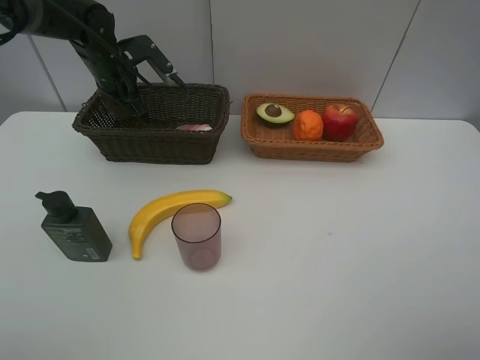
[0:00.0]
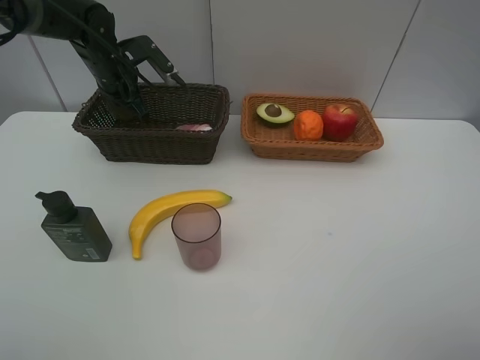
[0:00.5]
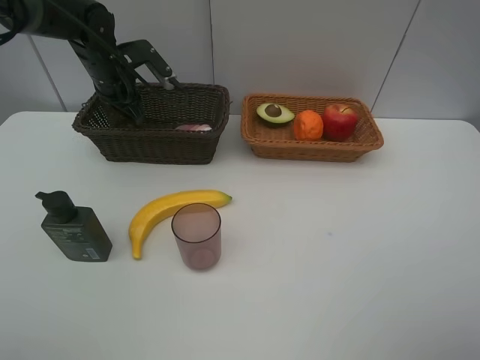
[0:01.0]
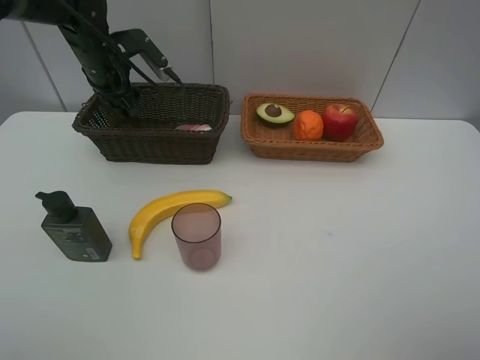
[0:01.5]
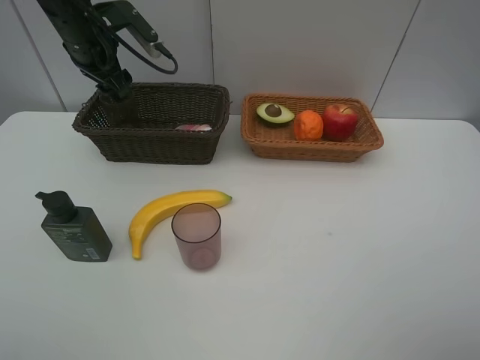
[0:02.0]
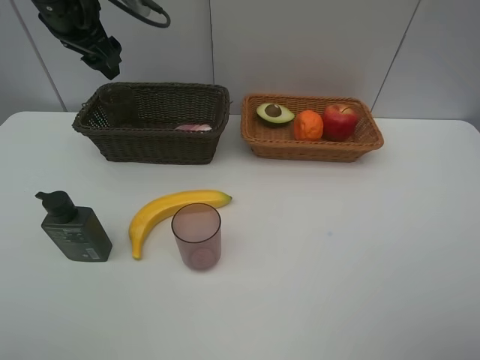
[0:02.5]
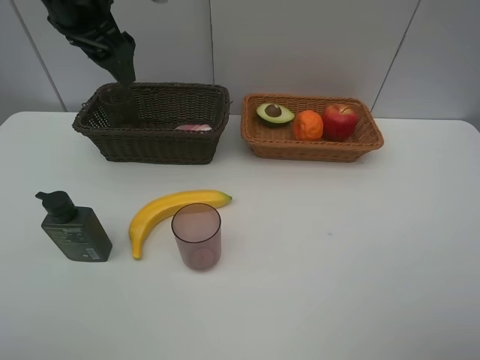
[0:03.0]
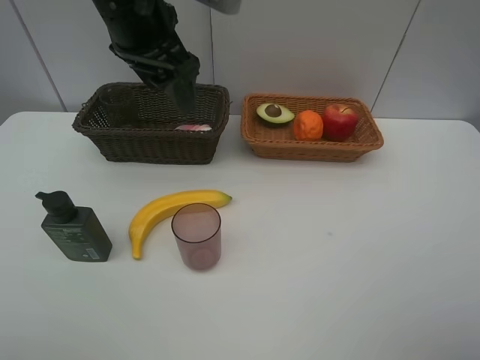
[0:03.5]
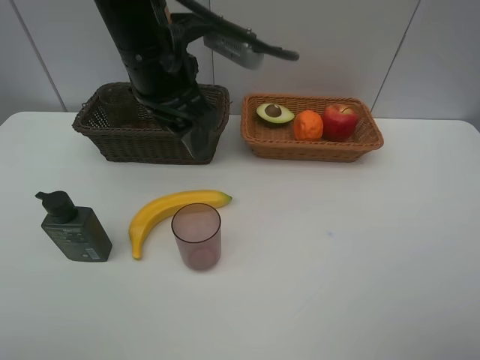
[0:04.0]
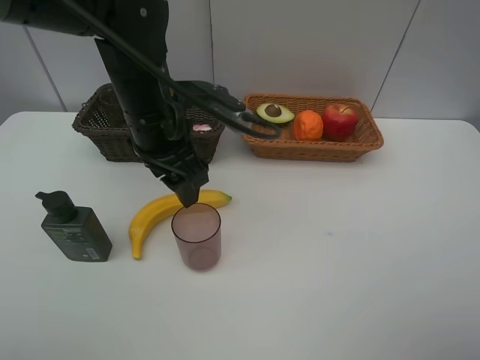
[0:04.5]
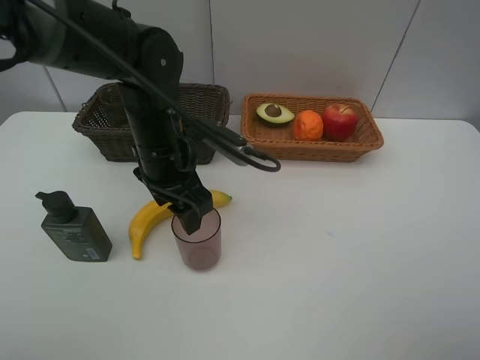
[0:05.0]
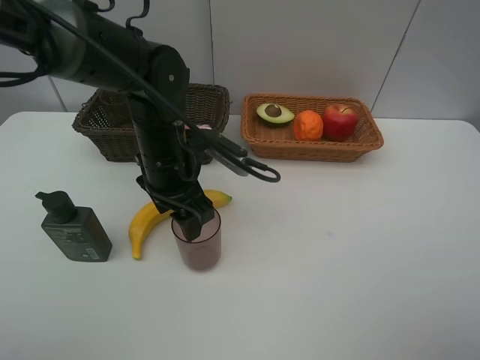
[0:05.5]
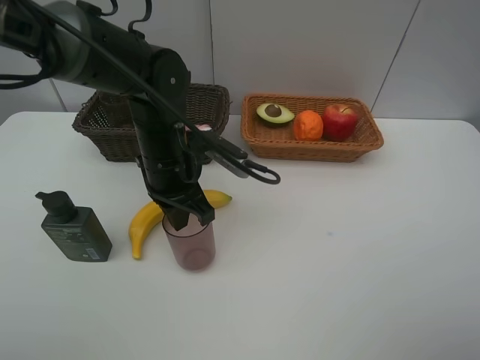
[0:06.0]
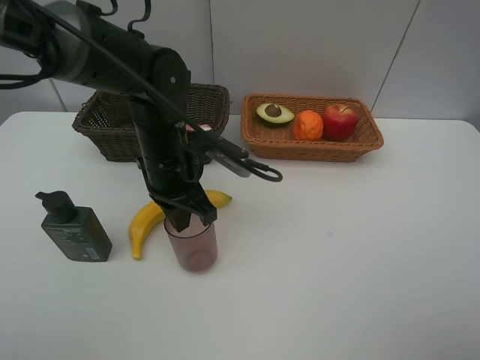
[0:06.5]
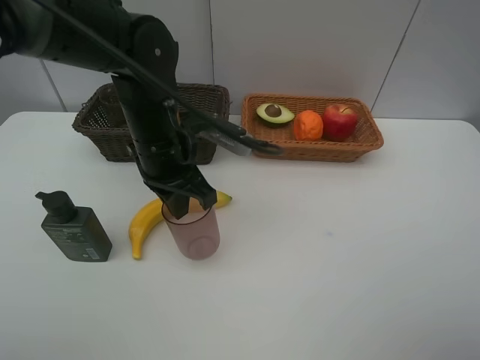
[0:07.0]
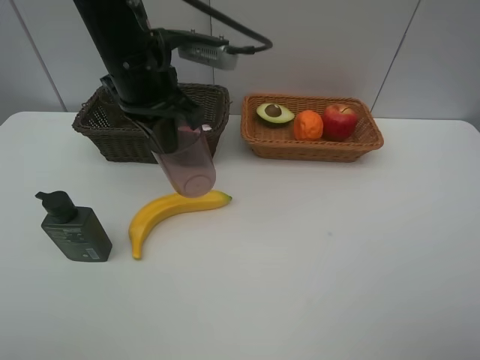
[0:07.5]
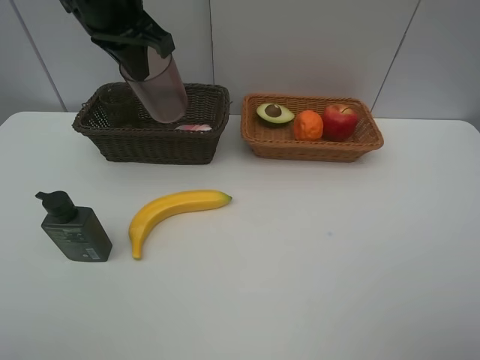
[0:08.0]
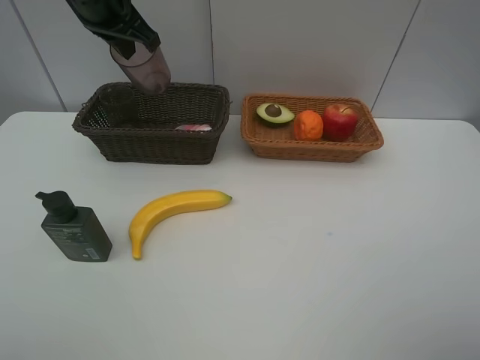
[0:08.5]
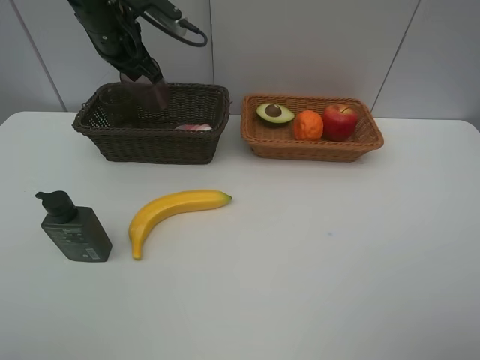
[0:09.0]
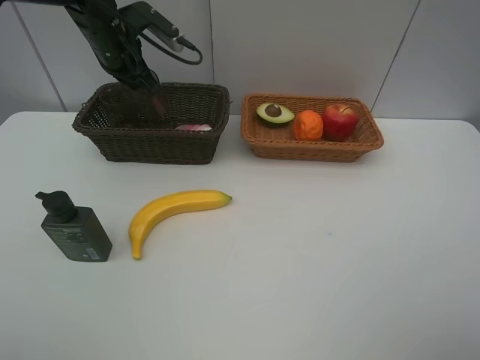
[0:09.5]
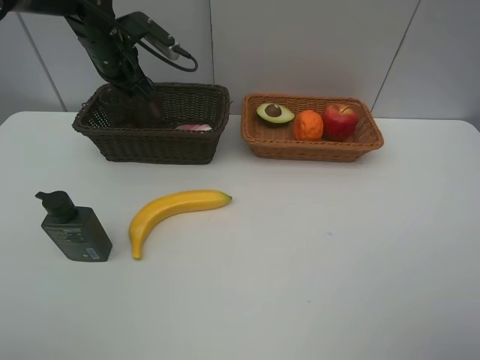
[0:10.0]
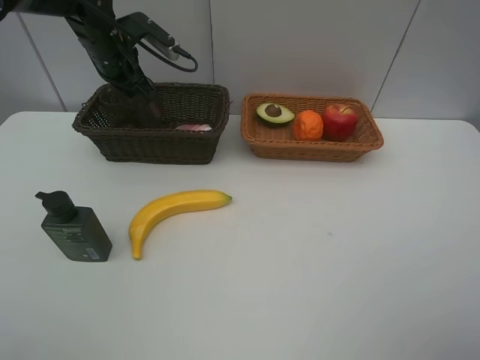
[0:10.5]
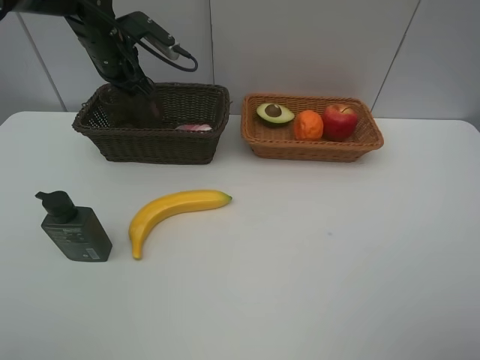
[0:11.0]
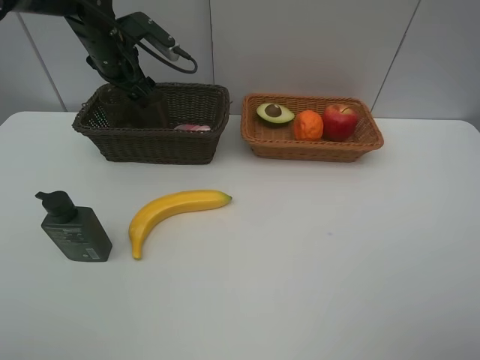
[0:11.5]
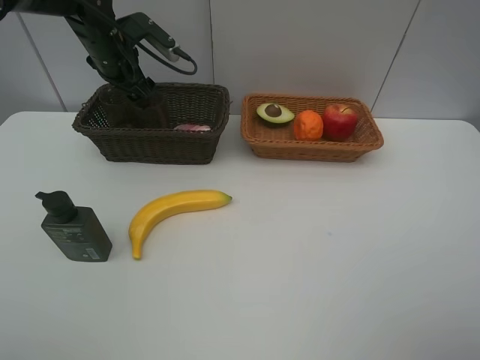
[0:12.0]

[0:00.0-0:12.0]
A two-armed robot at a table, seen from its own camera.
Task of the whole recording: Place multiple objects separately in different baskets.
Step, 0:02.0 to 0:07.0: Pick up the red cup with left gripper.
0:00.0 to 0:02.0: The left gripper shifts approximately 5 cm upward, and opens up.
0:02.0 to 0:04.0: The left gripper moves backward and to the right, approximately 20 cm.
0:04.0 to 0:06.0: The left gripper goes roughly 15 cm downward, and closes its fingers.
0:06.0 to 0:08.0: The left gripper heads upward and forward, covering approximately 20 cm.
0:08.0 to 0:10.0: The left gripper heads downward, forward and to the left, covering approximately 15 cm.

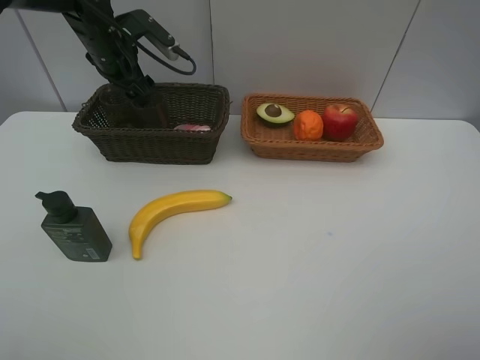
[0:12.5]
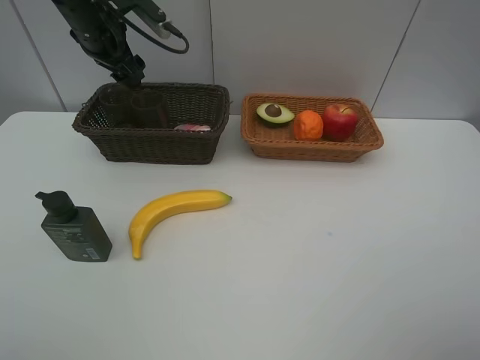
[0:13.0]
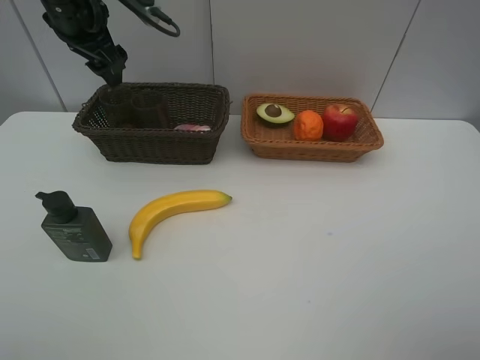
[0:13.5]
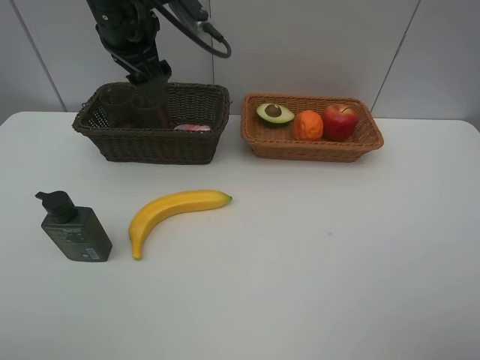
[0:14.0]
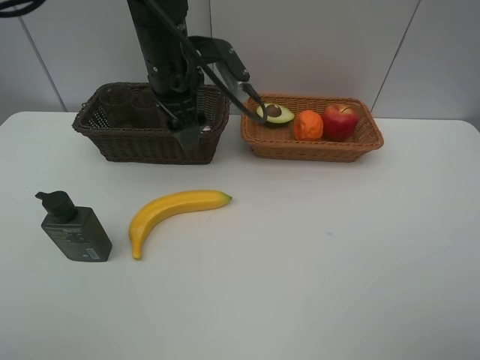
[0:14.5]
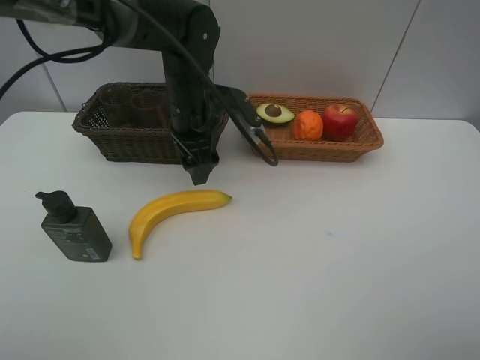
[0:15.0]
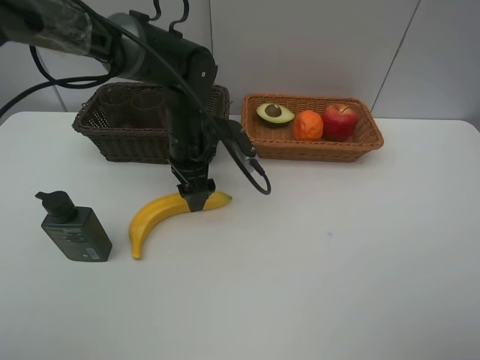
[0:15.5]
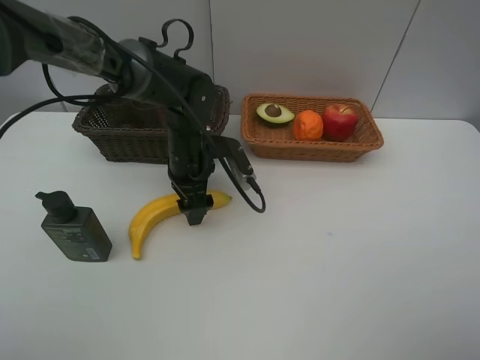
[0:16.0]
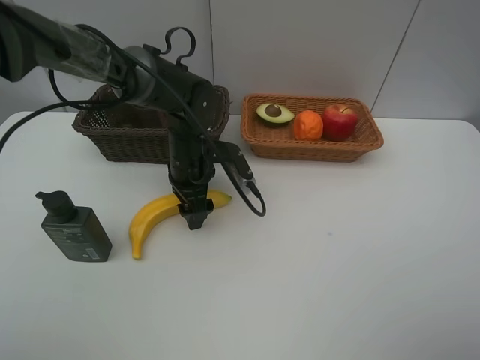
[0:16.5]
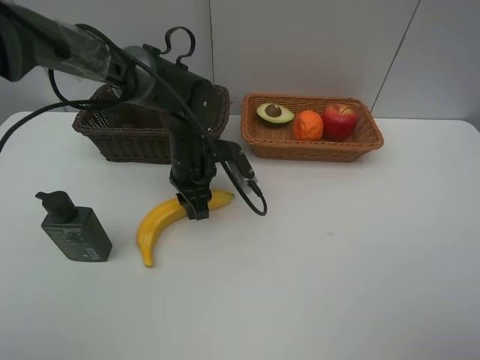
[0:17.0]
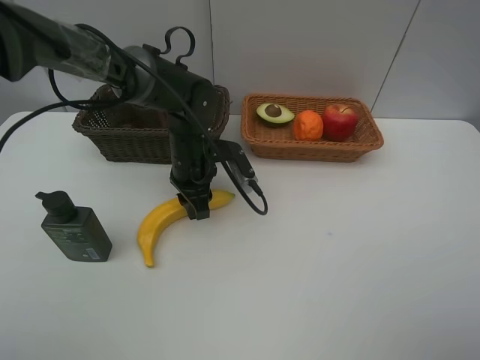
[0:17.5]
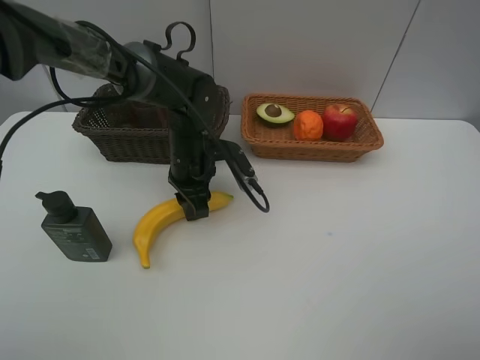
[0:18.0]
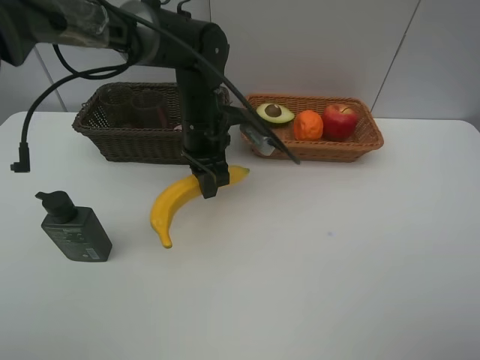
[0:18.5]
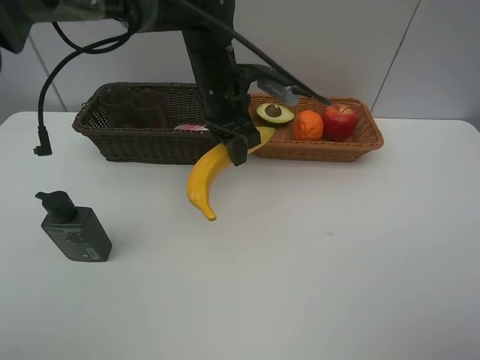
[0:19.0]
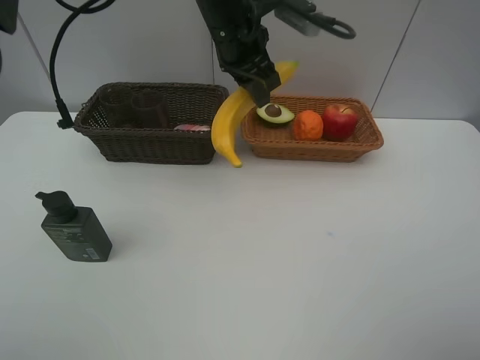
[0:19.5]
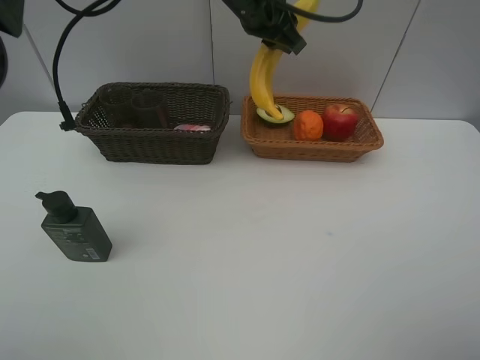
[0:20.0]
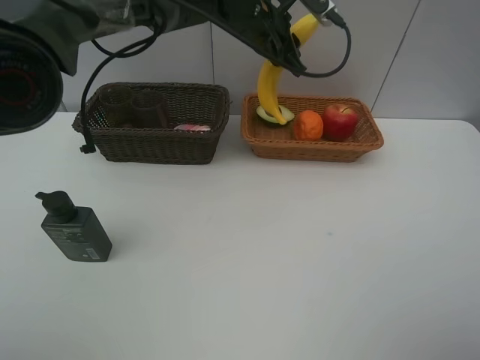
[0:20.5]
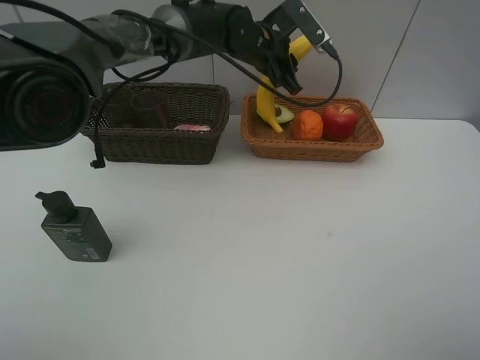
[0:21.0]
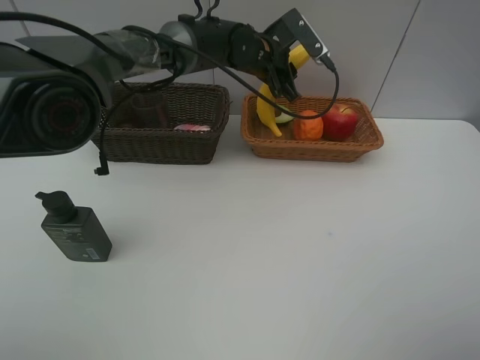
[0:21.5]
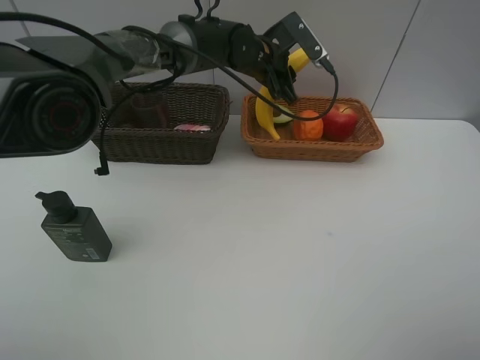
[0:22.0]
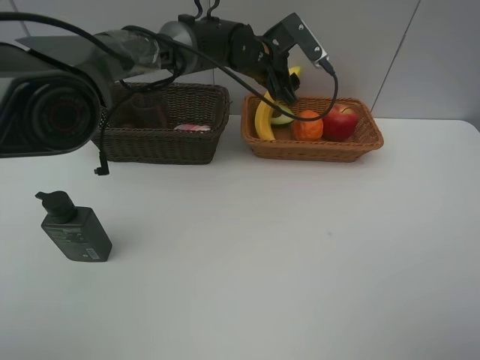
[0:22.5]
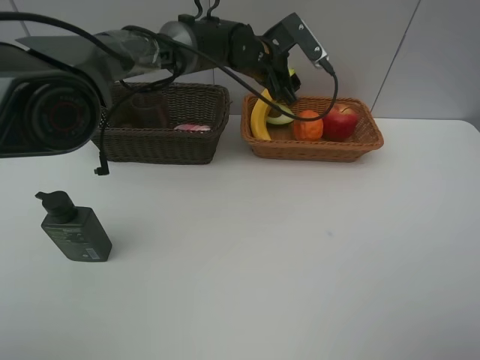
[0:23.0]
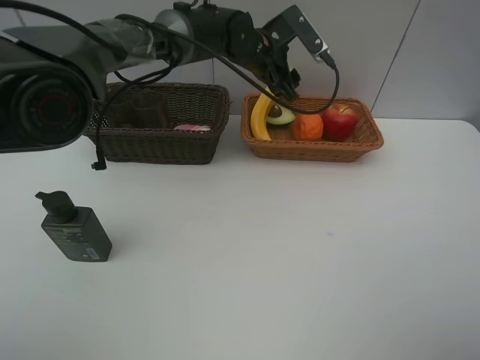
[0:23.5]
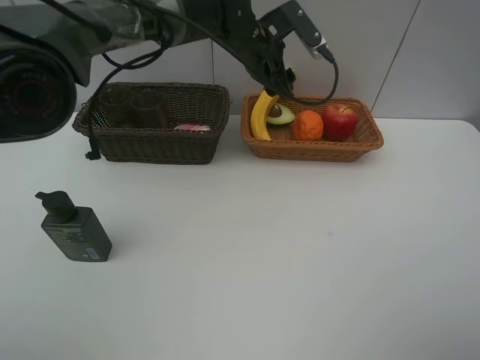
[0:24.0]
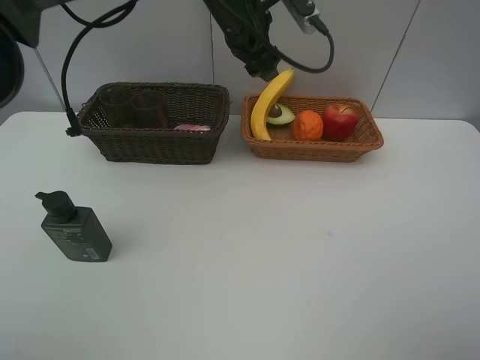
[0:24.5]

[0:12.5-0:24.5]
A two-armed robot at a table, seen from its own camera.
Task of the whole recording: Place multiple objects separately in different baskets.
Step, 0:13.0 to 0:18.0: Pick up banana with left gripper.
Step, 0:18.5 to 0:23.5: Place the banana in the light basket with left gripper.
0:12.5 to 0:14.5: The left gripper is displaced to the right and backward by some 15 cm.
0:14.5 to 0:16.5: The left gripper moves downward, roughly 15 cm.
0:16.5 to 0:18.5: The left gripper travels upward by roughly 5 cm, and closes its fingers.
0:18.5 to 0:20.5: The left gripper travels forward, upward and to the right by roughly 15 cm.
0:20.5 to 0:22.5: The left gripper moves downward, roughly 5 cm, and opens its fingers.
0:22.5 to 0:24.5: The left gripper is displaced upward by roughly 10 cm.

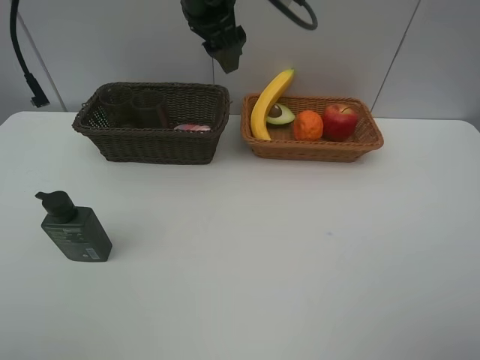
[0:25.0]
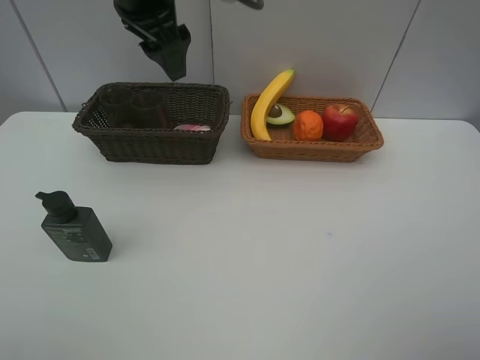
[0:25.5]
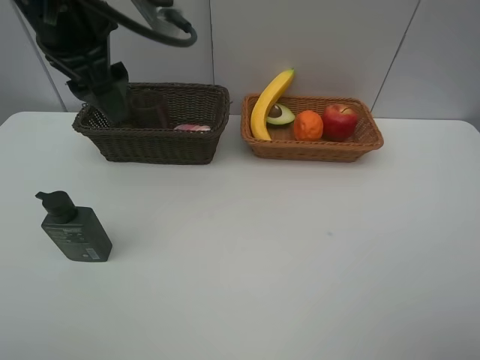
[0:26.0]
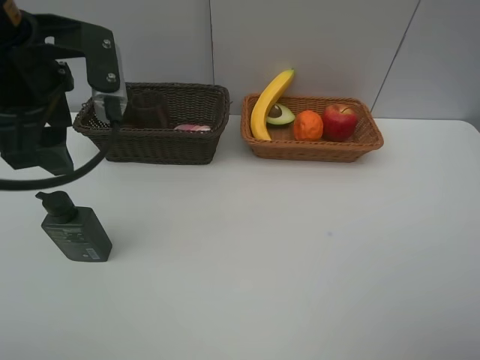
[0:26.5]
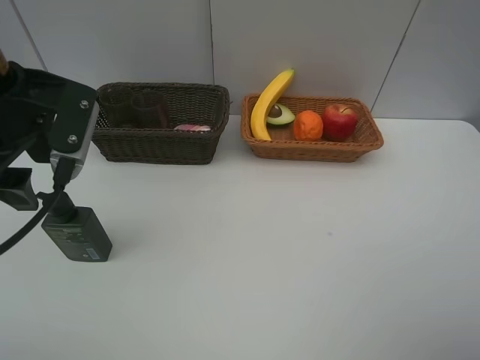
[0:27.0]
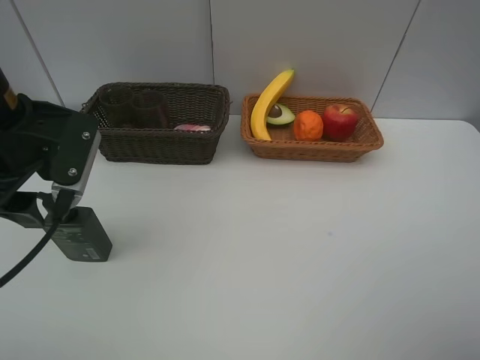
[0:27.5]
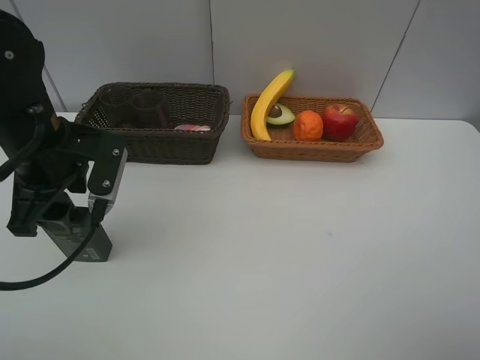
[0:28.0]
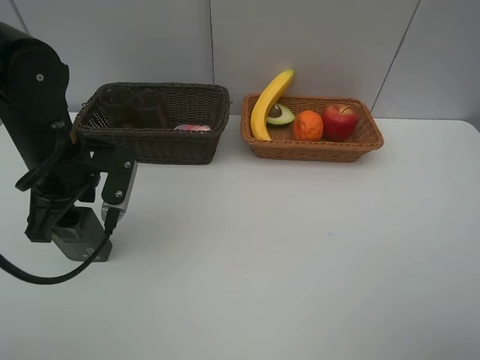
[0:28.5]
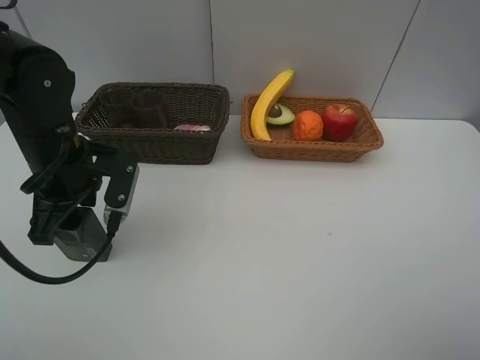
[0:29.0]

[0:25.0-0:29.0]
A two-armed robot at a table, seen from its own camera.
Task of the whole recording: Place multiple objects separately in different baskets.
0:25.0 to 0:27.0: The left gripper moves backward and to the left, about 25 cm.
0:27.0 to 0:29.0: The left gripper goes about 10 cm downward.
